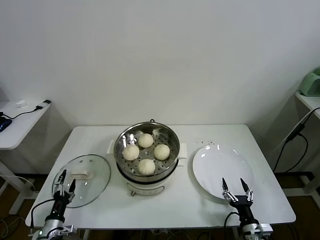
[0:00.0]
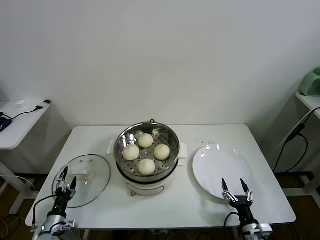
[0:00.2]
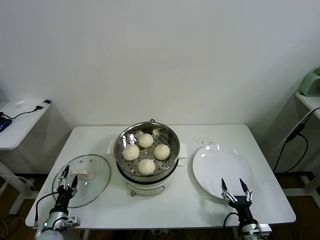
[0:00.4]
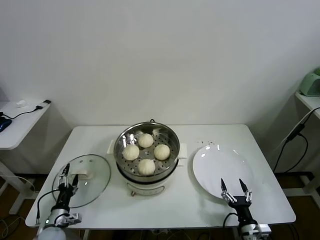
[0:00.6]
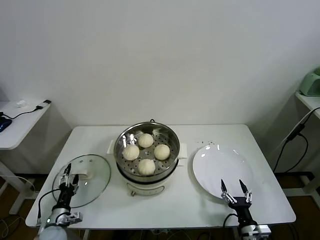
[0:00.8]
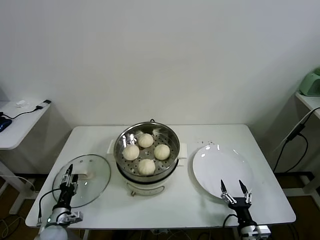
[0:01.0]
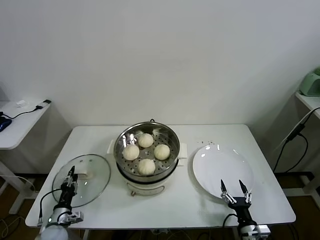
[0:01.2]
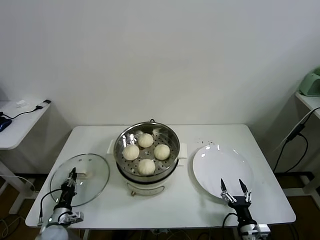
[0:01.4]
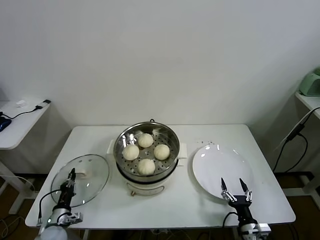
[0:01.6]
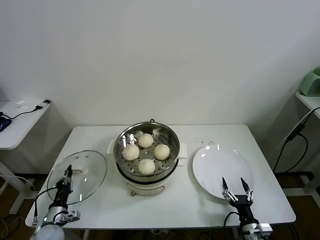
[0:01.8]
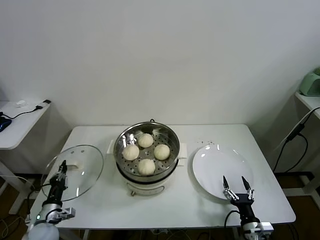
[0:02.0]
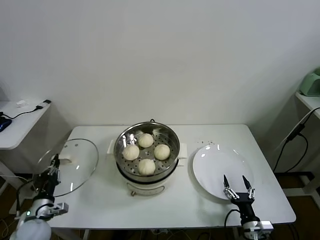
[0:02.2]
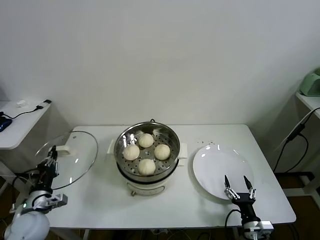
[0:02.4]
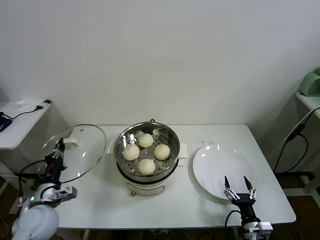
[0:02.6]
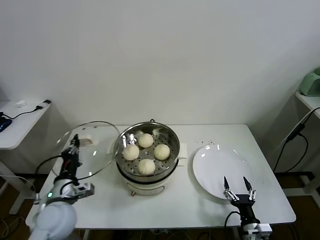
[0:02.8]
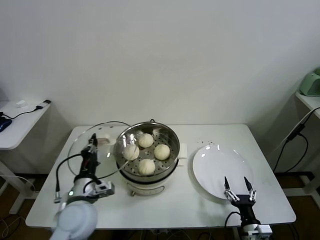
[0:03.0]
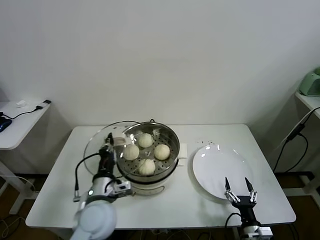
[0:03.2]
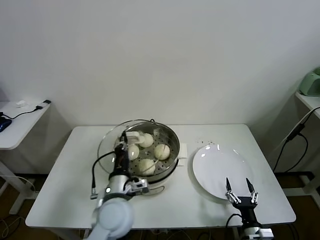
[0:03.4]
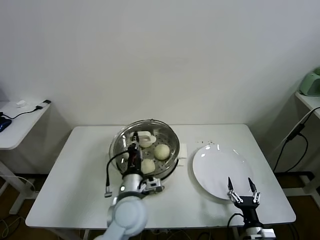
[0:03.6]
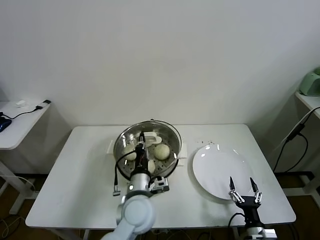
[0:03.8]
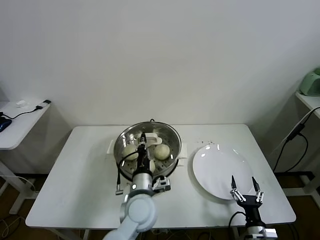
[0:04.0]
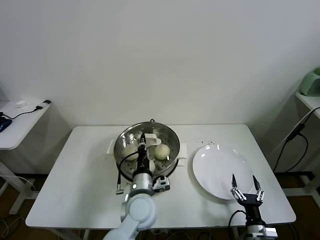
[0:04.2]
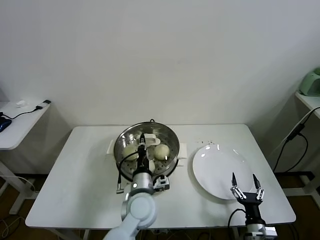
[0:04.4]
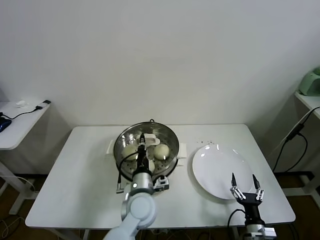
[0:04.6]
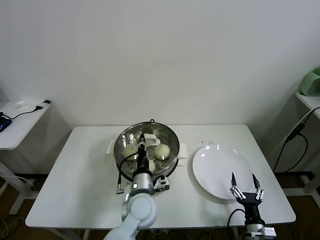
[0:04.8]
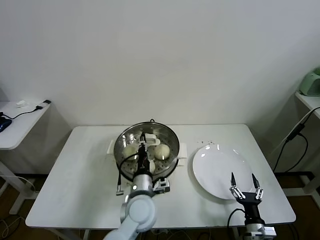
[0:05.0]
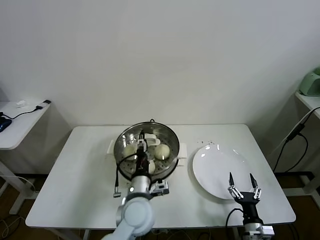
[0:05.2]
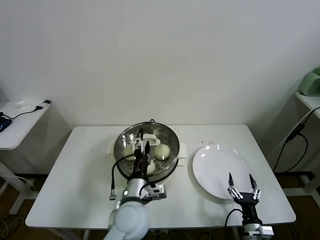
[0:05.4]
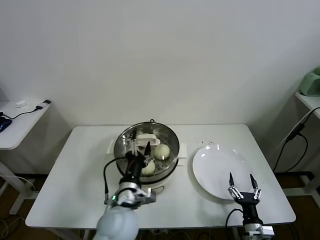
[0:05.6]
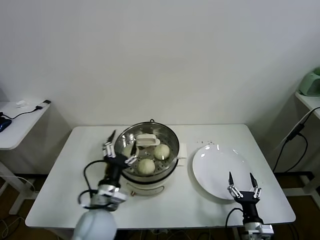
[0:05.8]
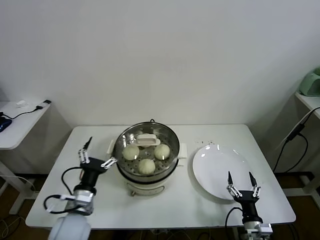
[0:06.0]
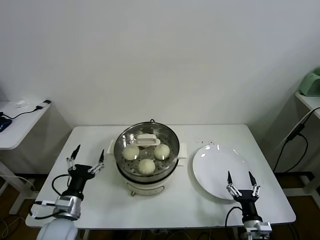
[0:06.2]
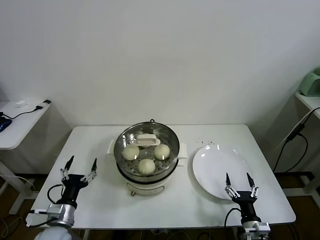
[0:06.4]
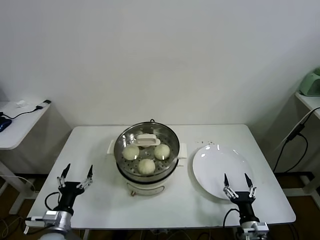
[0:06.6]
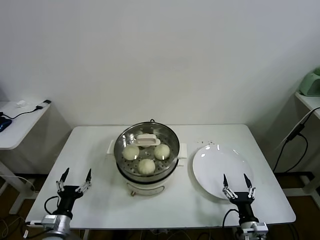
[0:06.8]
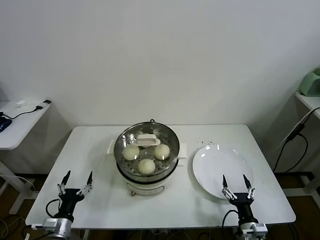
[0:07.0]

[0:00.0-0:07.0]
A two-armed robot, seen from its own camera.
Task of the whole recording: take steamed baozi put them in steamer.
Step, 0:01.6 to 0:05.4: Place the pot lid on the steamer with left gripper.
0:00.0 to 0:01.4: The left gripper shifts by about 5 cm, and closes up.
0:01.4 to 0:02.8: The left gripper shifts roughly 25 cm upward and to the right.
0:02.8 to 0:04.2: The left gripper heads to the right, covering roughly 25 cm.
0:04.2 to 0:05.6: The left gripper ends up approximately 5 cm from where it was, and opens.
0:05.6 to 0:07.0: The left gripper travels to the left and downward by about 30 cm.

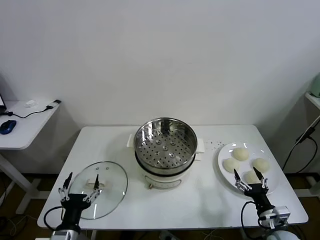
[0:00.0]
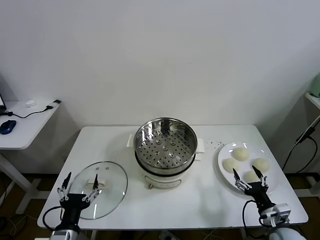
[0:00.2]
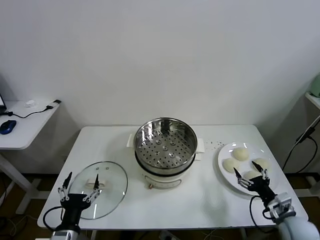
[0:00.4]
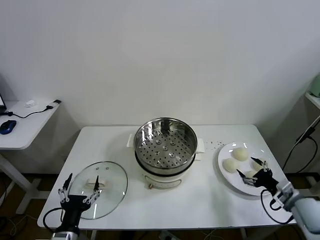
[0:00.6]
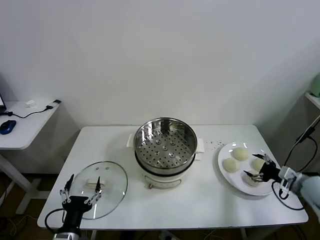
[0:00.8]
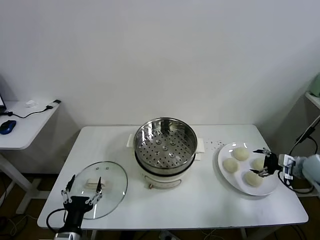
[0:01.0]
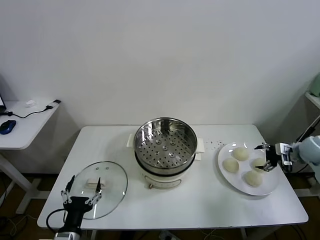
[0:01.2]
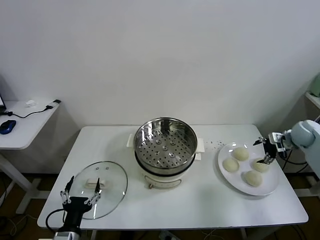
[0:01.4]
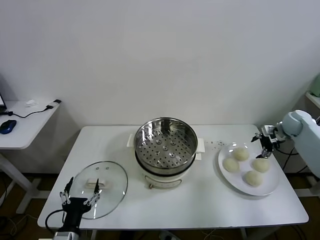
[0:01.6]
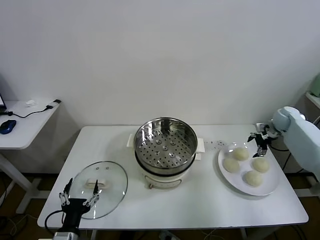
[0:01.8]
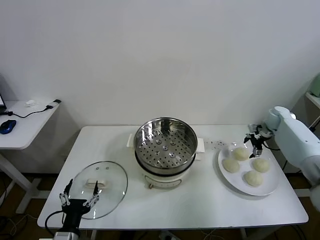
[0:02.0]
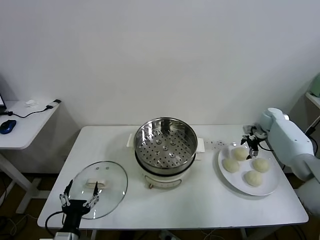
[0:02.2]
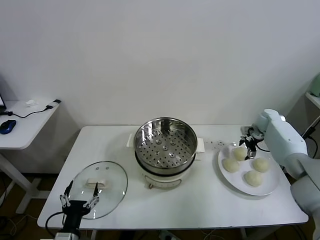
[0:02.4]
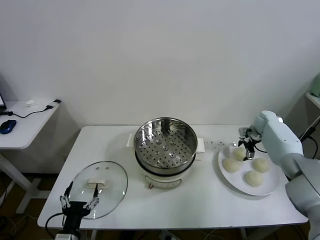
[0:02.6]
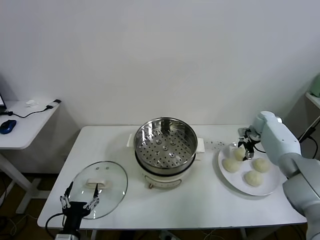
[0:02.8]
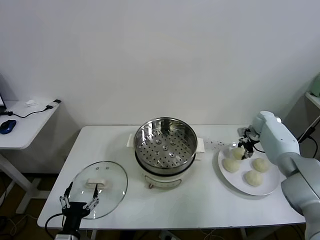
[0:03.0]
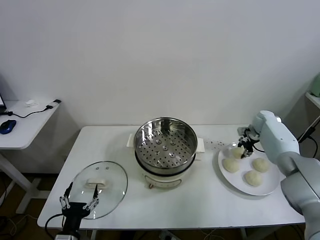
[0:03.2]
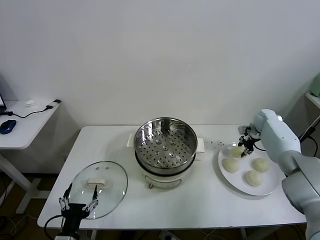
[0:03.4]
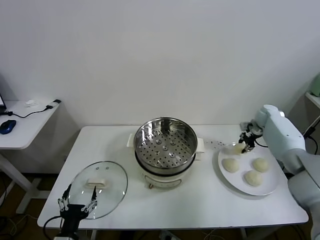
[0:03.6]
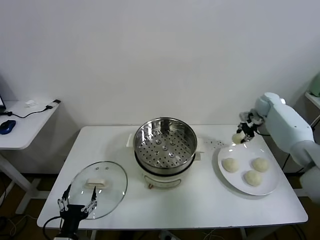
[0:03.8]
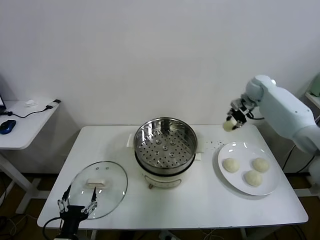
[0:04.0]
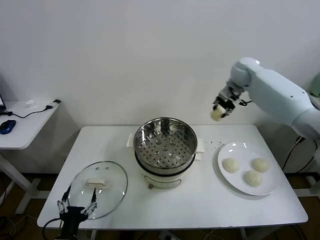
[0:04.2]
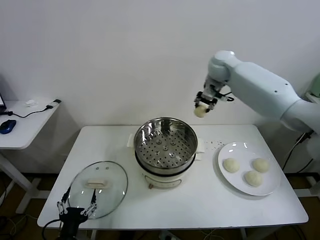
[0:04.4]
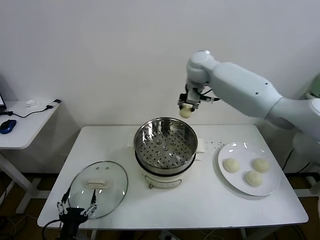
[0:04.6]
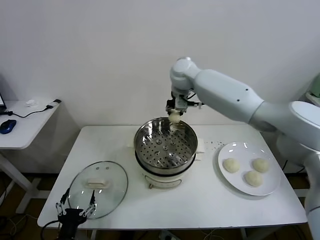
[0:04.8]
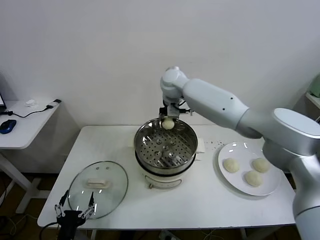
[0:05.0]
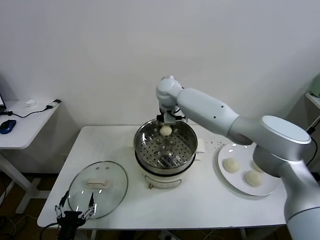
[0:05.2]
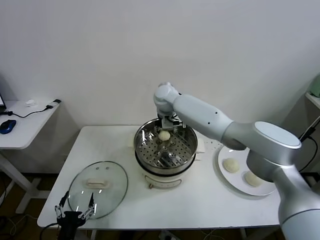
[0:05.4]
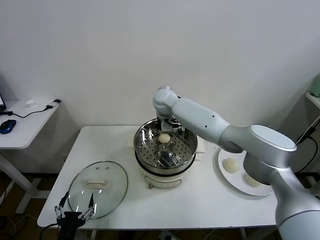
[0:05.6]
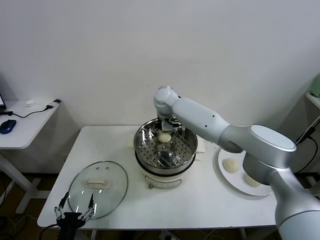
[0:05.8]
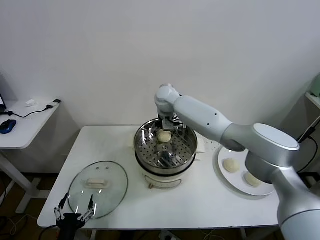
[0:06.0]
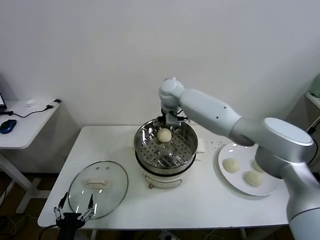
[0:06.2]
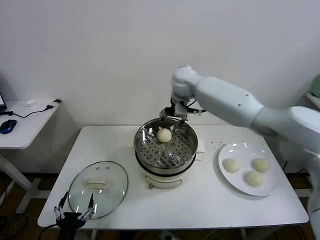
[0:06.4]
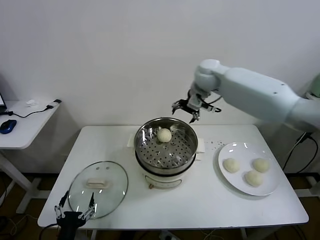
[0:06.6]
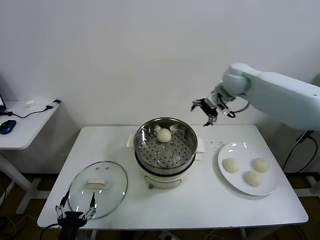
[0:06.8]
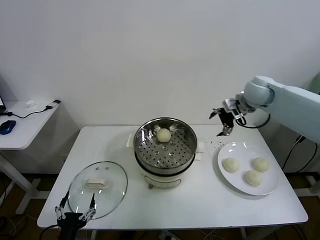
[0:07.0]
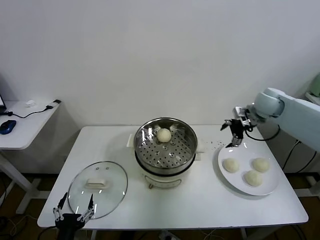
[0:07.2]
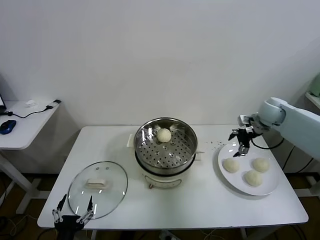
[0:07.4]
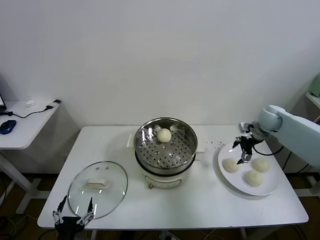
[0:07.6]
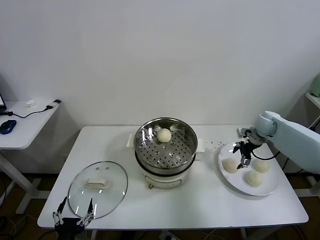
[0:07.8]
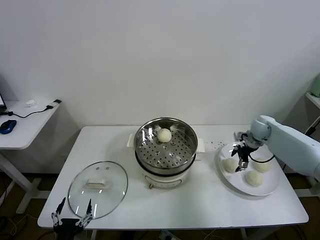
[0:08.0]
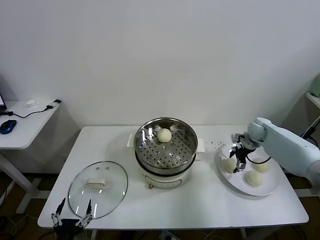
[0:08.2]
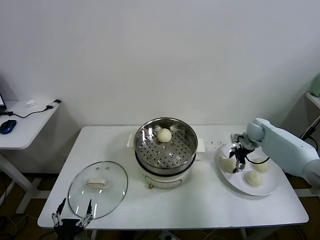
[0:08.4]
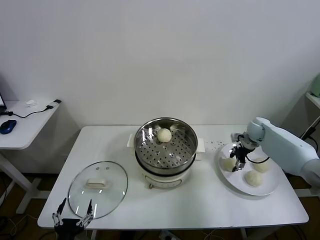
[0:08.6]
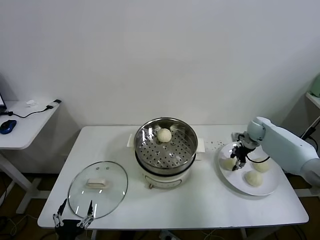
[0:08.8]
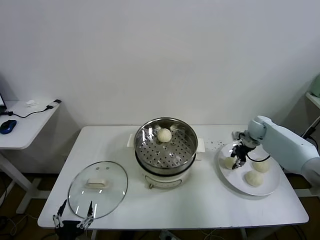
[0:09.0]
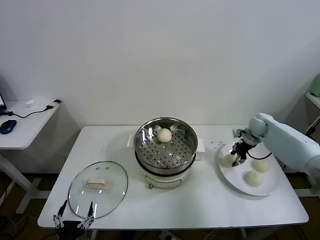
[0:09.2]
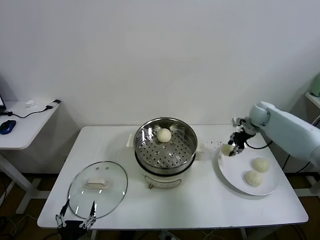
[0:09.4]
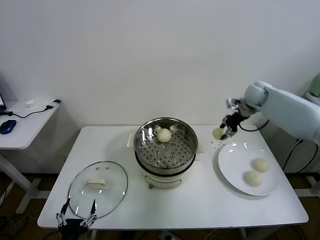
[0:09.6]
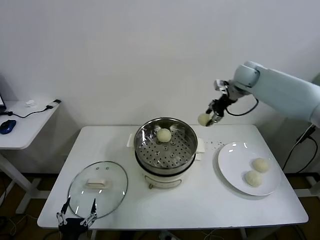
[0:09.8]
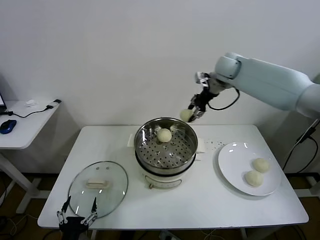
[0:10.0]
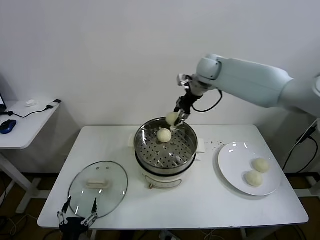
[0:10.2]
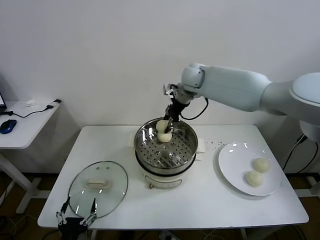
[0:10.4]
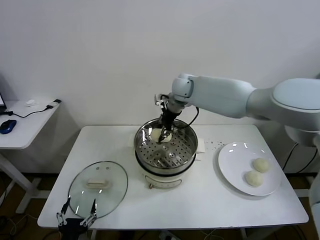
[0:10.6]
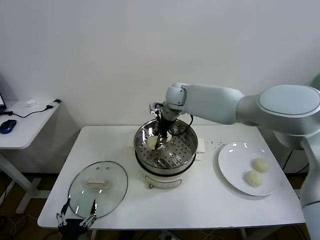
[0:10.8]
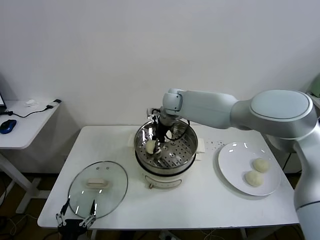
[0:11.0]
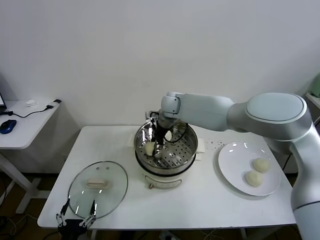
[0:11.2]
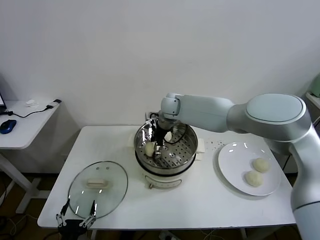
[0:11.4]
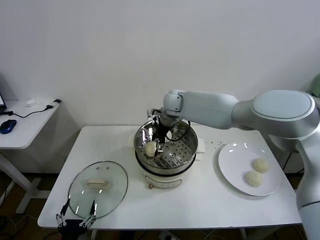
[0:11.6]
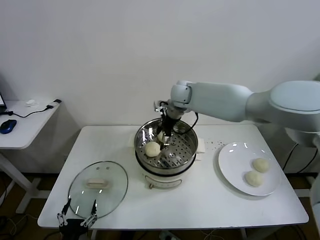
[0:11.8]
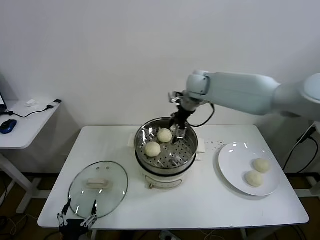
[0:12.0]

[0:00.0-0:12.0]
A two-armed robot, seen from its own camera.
Task of the whole recording: take steamed baozi put them in steamer.
Step, 0:00.0 to 0:02.8: Grasp the baozi in the plate with right gripper.
Step, 0:03.0 to 0:06.0: Place the baozi on the steamer with right gripper.
Step, 0:06.2 to 0:08.6: Grasp the baozi in the plate with right gripper.
Step, 0:08.8 to 0:11.6: Place the baozi on the steamer with right gripper.
0:01.6 to 0:03.0: The right gripper shifts by about 10 cm, and closes up.
0:03.0 to 0:04.4: The right gripper shifts approximately 40 cm to the left and upward.
0:04.4 to 0:06.0: The right gripper heads downward and to the left, covering about 10 cm, and opens.
0:06.0 to 0:07.6: The right gripper goes some 40 cm to the right.
0:07.6 to 0:09.0: The right gripper closes.
0:09.0 to 0:10.4: The right gripper goes roughly 35 cm to the left and upward.
0:10.4 to 0:12.0: The right gripper shifts approximately 10 cm to the right, and opens its fingers.

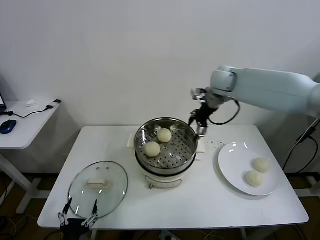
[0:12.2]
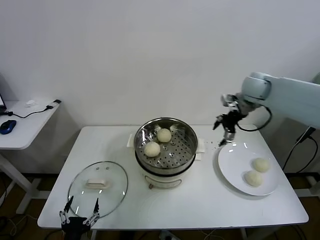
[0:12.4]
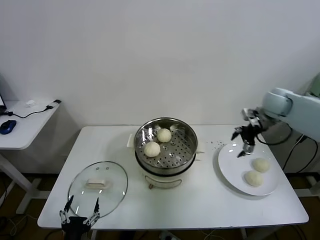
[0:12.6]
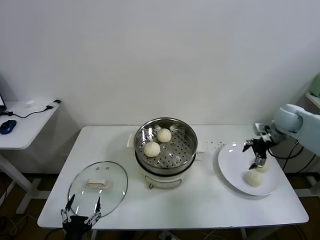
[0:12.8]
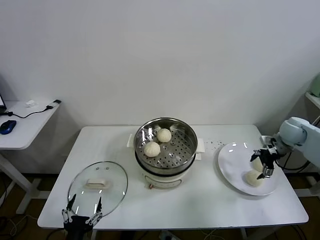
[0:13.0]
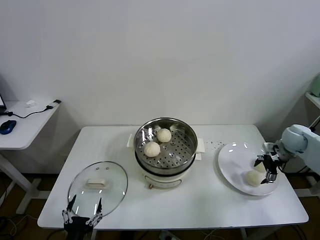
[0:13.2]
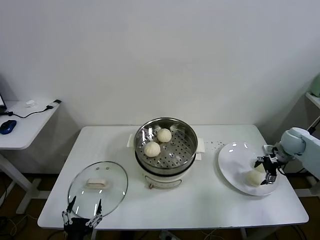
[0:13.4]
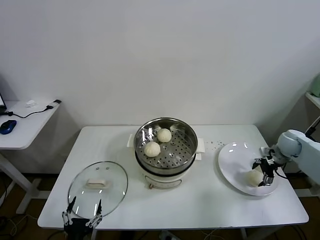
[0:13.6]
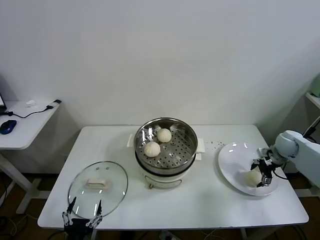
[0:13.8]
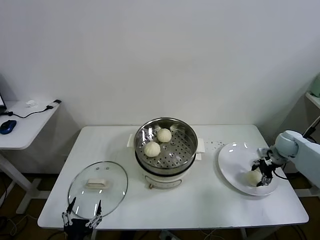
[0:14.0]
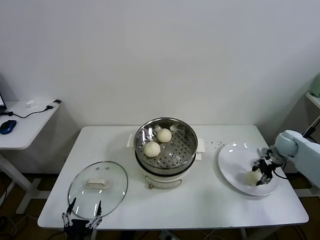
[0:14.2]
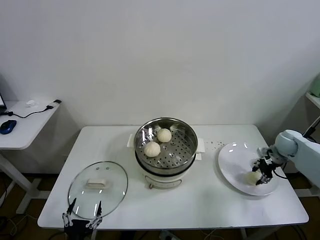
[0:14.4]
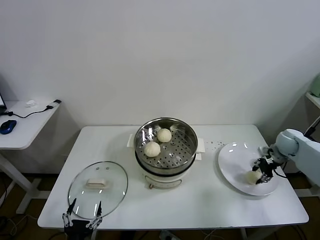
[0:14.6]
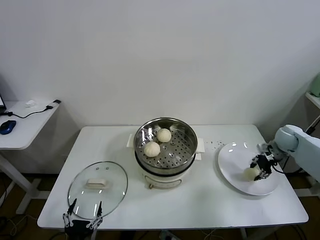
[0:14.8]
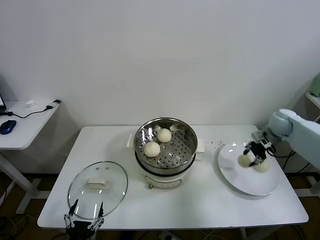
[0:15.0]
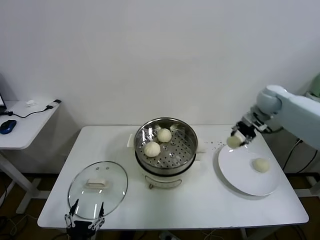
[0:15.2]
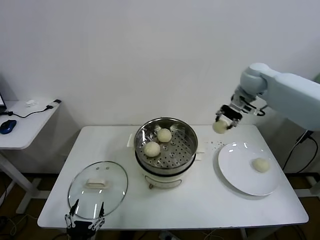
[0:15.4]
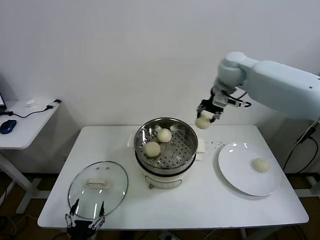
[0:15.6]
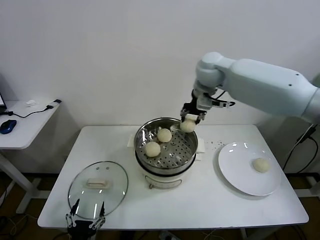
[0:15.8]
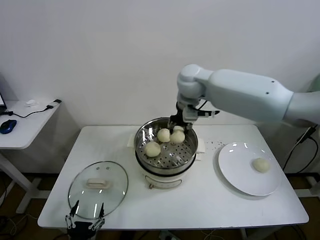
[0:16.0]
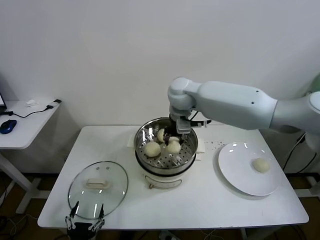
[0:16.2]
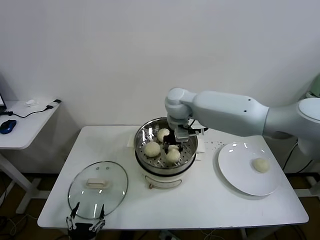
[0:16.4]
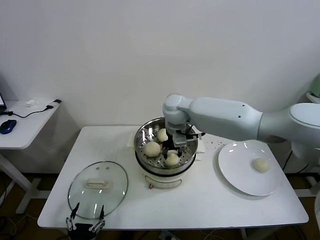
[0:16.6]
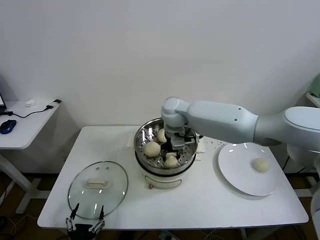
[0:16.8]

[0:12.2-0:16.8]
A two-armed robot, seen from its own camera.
Task of the whole recording: take steamed baozi put them in steamer.
Step, 0:12.2 to 0:14.0: Grasp the baozi in the plate with right gripper.
0:12.2 to 0:13.8: The right gripper heads downward and to the right, covering approximately 30 cm.
0:13.8 to 0:15.2: The right gripper moves upward, to the left and forward, roughly 25 cm, and closes up.
0:15.2 to 0:16.8: The right gripper moves to the left, roughly 30 cm.
